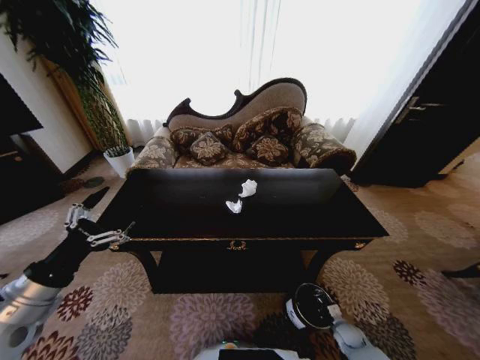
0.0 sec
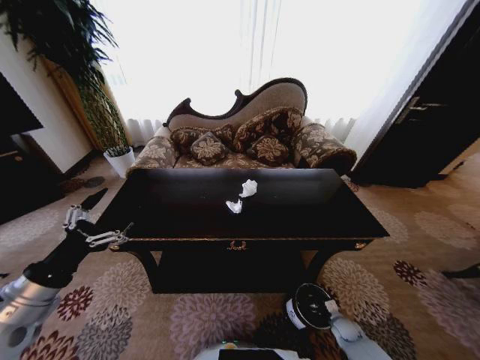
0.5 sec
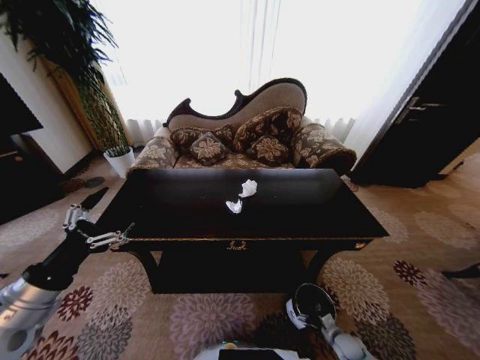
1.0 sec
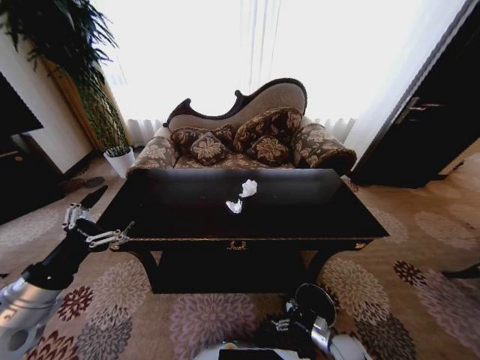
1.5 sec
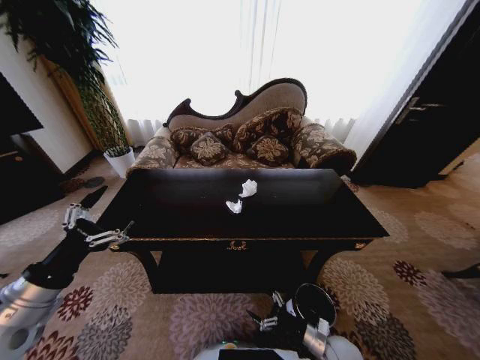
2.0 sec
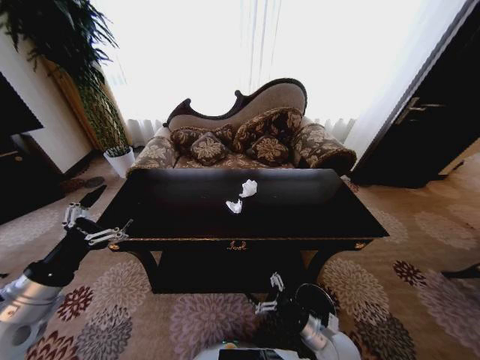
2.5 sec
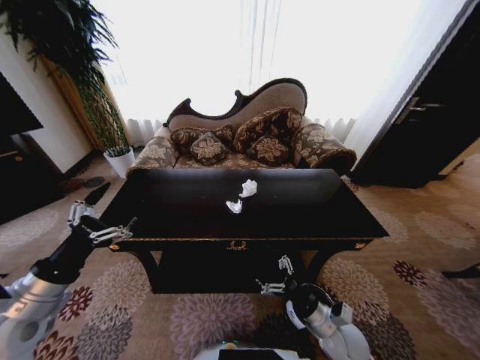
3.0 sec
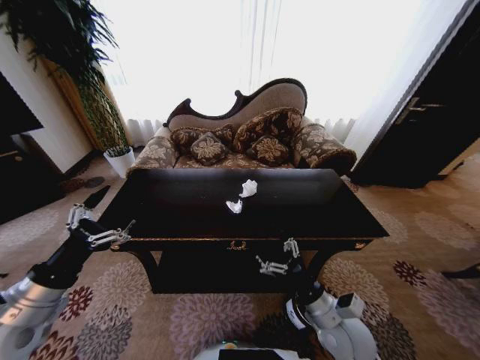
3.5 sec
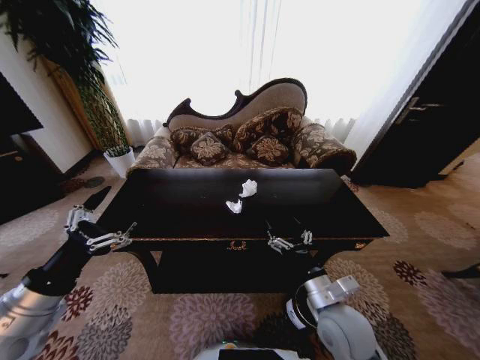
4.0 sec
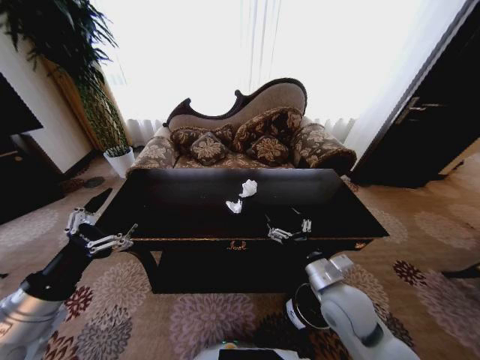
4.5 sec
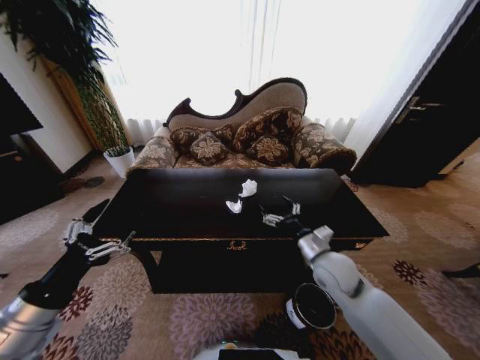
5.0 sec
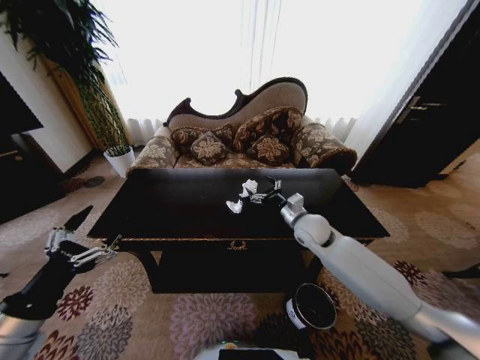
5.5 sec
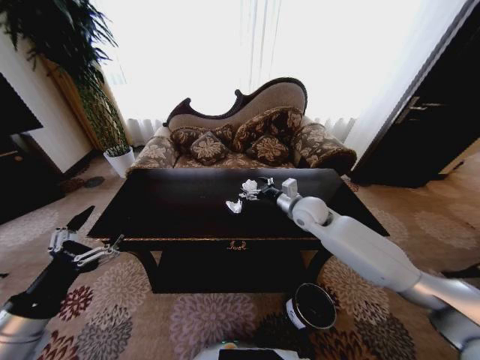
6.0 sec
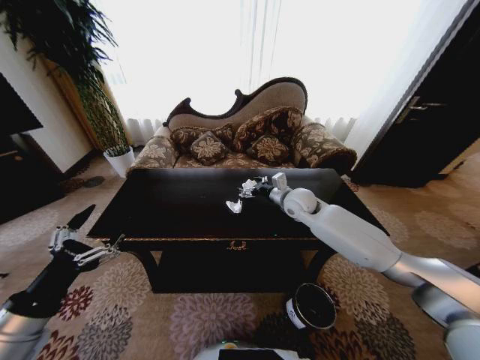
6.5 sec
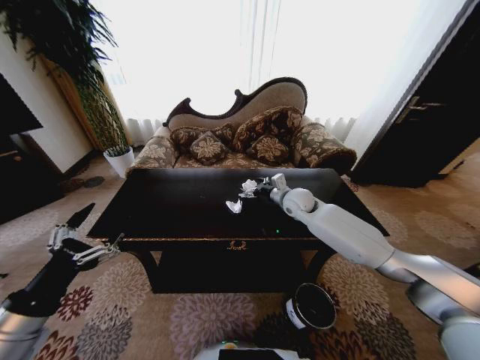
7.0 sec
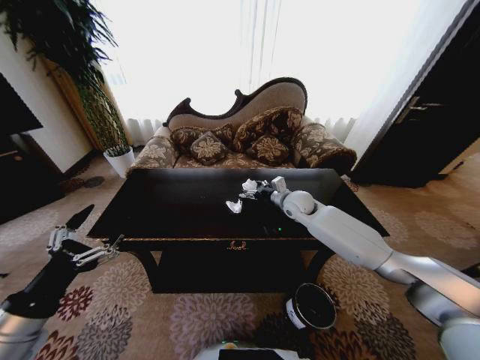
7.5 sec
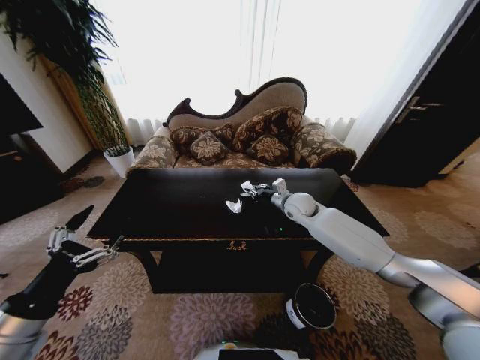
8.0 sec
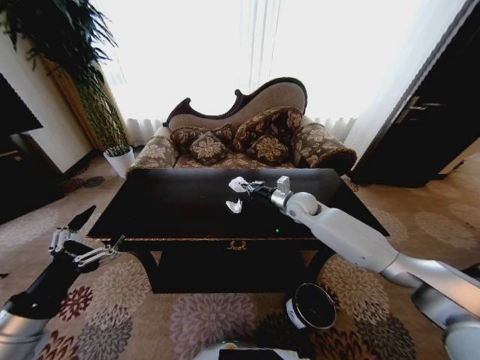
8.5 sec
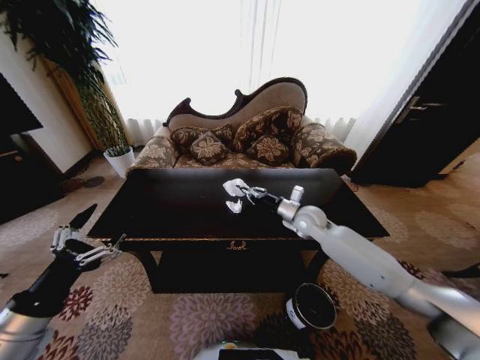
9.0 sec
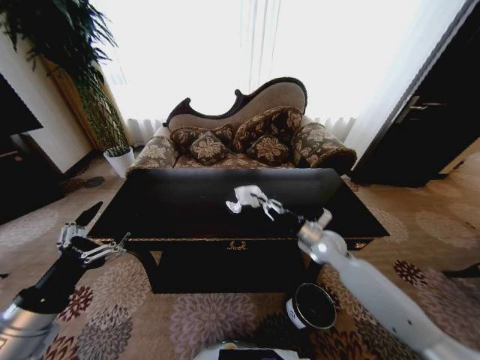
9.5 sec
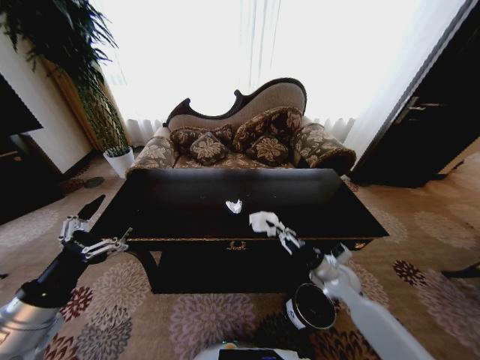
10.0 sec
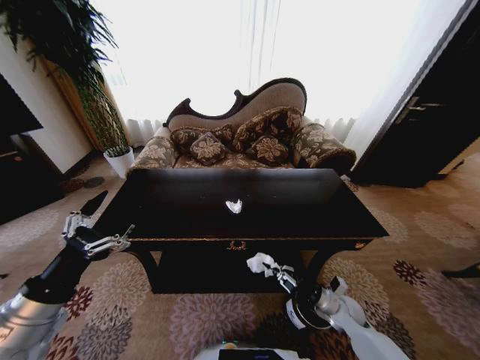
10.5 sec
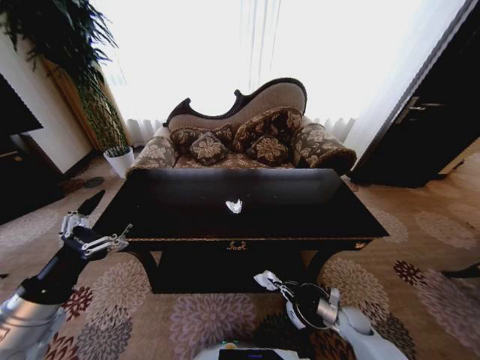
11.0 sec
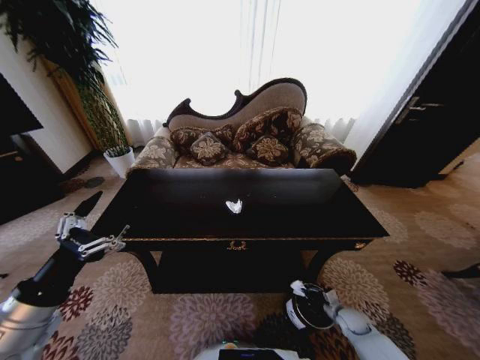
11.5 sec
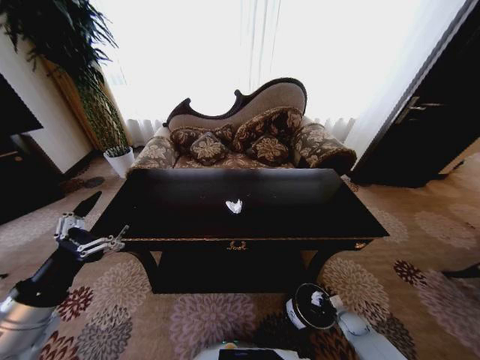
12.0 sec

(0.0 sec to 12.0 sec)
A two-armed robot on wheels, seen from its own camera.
Task of the whole recording: Move to the front of the table and place the trash on the table into the trash bin.
0.0 sec - 2.0 sec: The right gripper moves to the left and upward, approximately 15 cm, and opens.
2.0 sec - 4.0 sec: The right gripper moves upward and to the left, some 25 cm.
4.0 sec - 6.0 sec: The right gripper is displaced forward by roughly 25 cm.
6.0 sec - 8.0 sec: The right gripper moves forward, approximately 5 cm, and closes its fingers.
8.0 sec - 10.0 sec: The right gripper is displaced backward, downward and to the right by about 25 cm.
10.0 sec - 12.0 sec: The right gripper goes approximately 25 cm downward and to the right.

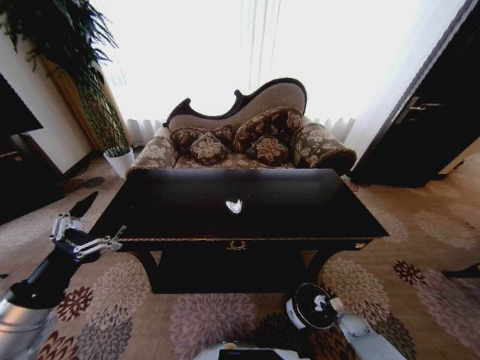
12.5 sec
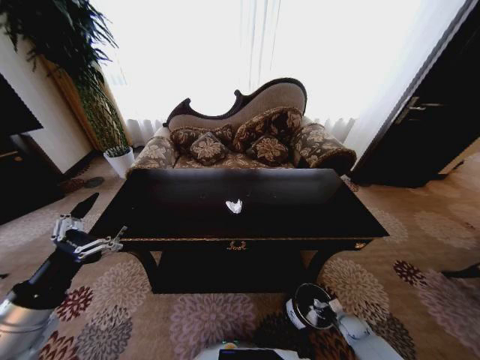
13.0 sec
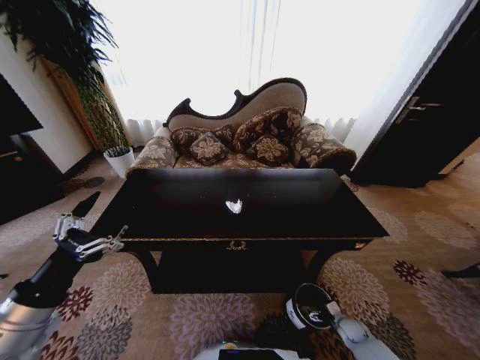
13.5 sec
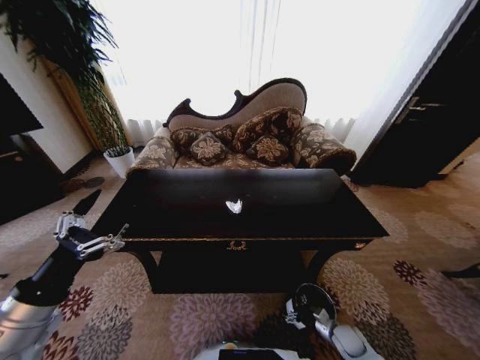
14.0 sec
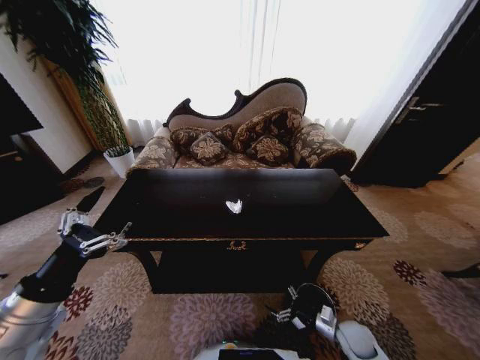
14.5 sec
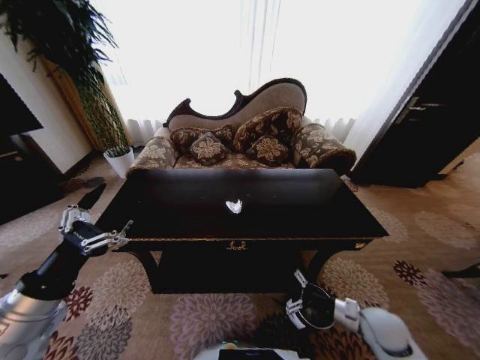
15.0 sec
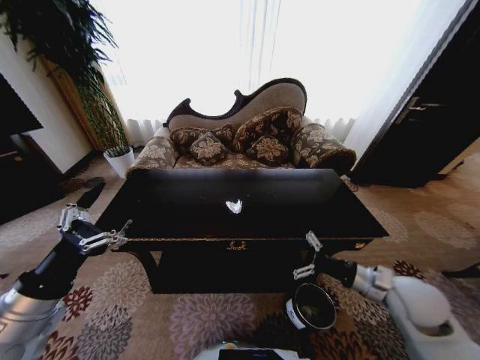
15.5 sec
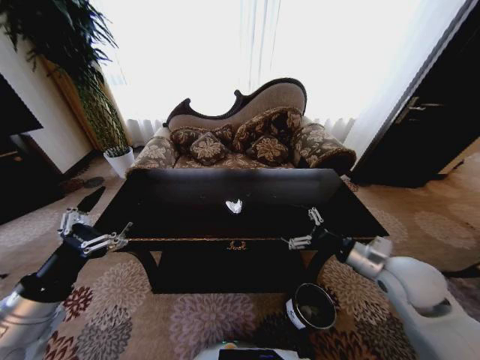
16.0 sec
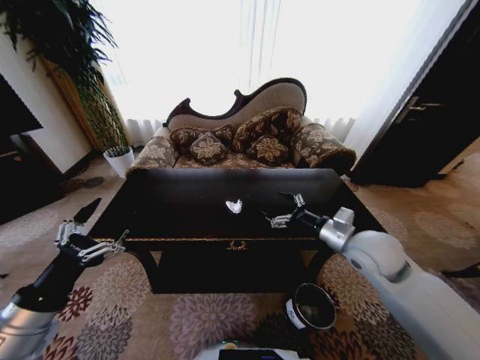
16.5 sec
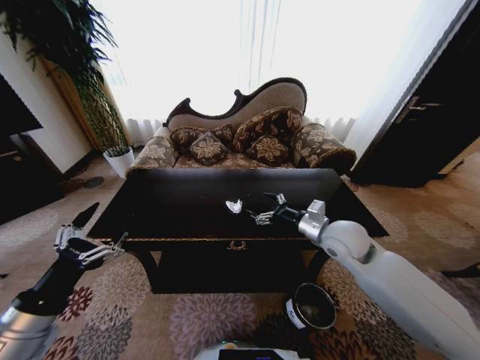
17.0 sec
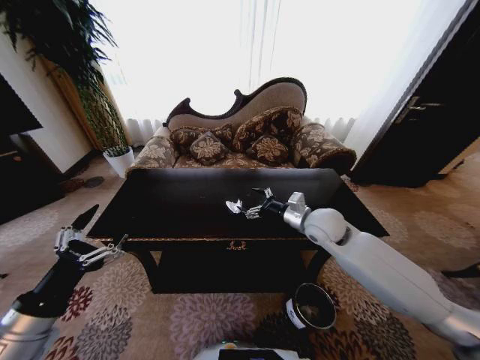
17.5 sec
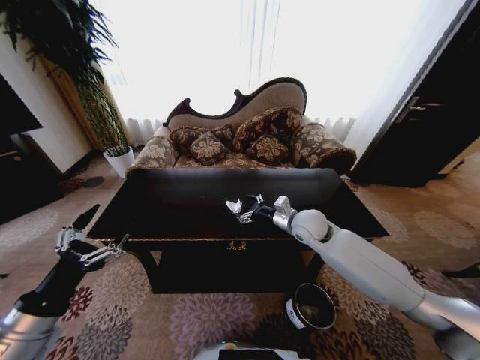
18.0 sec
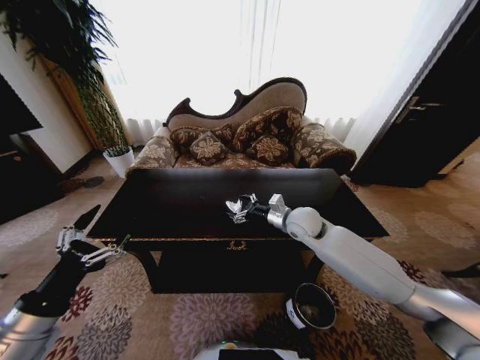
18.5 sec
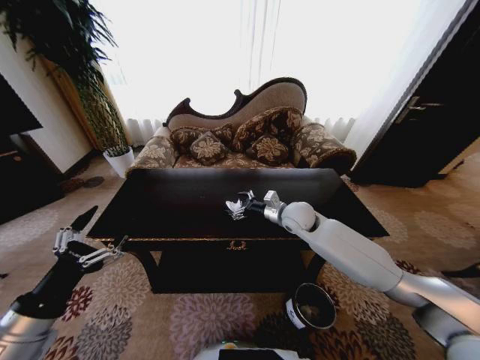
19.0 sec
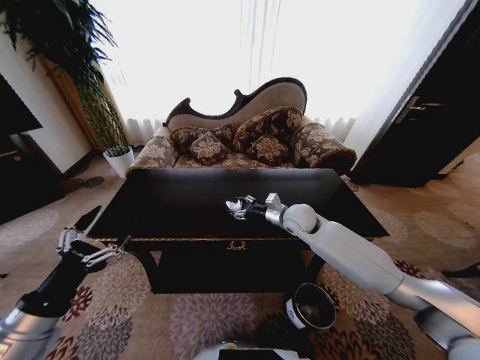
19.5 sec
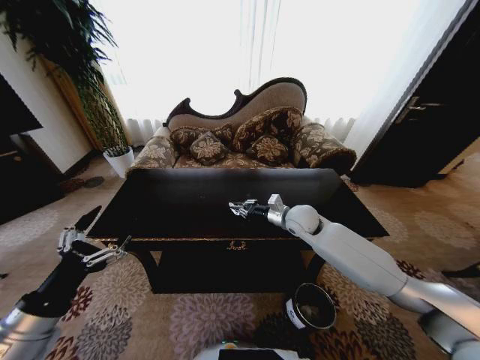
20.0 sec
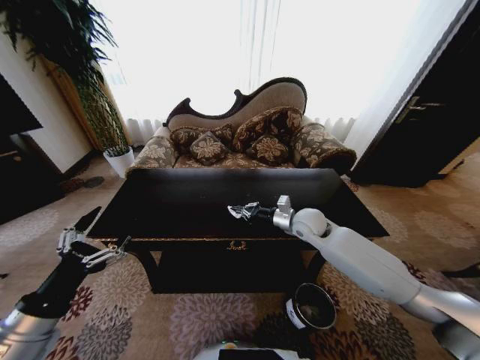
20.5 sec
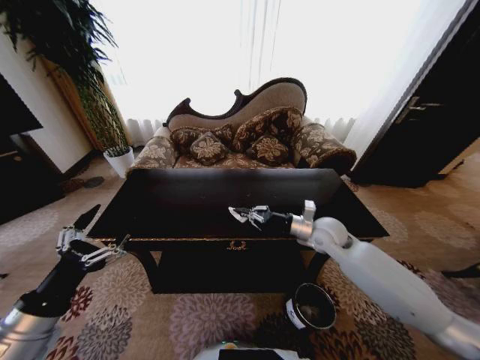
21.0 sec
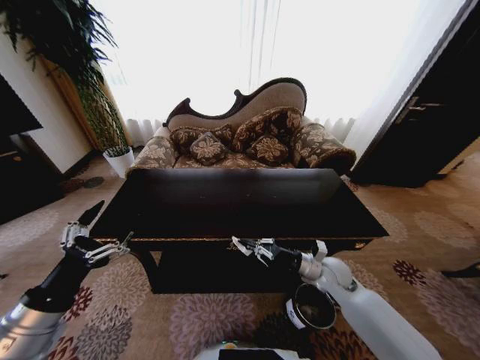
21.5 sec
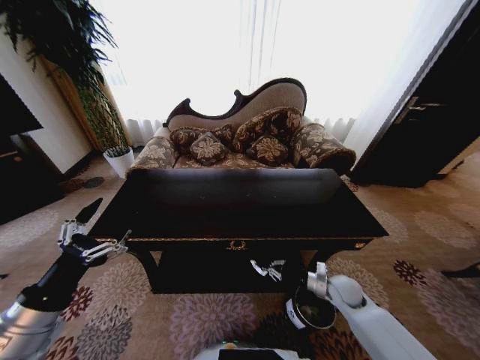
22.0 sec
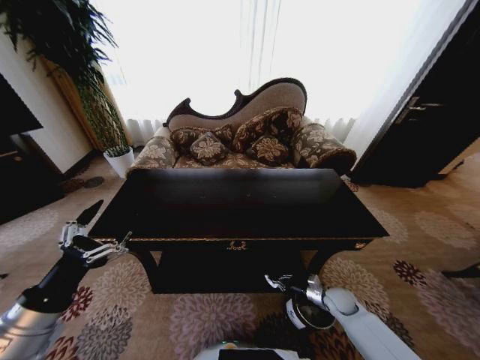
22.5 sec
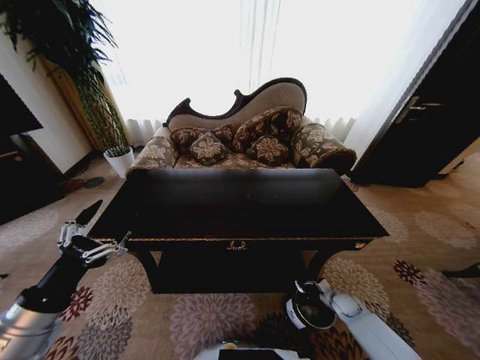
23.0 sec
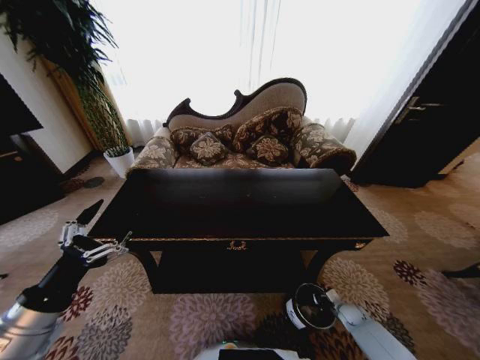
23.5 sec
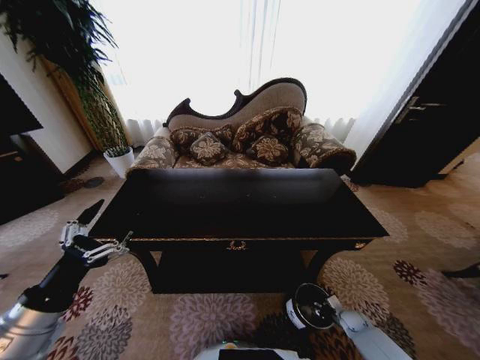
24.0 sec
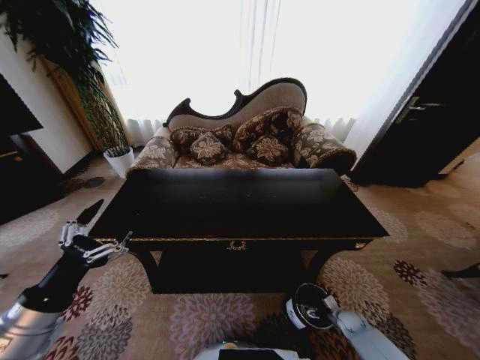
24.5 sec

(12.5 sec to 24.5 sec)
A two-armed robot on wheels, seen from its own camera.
Task of the whole recording: Move to the front of the table and place the trash on the table into the trash bin.
12.5 sec - 14.5 sec: The right gripper heads upward and to the left, covering roughly 15 cm, and opens.
14.5 sec - 16.5 sec: The right gripper shifts some 35 cm upward.
16.5 sec - 18.5 sec: The right gripper travels forward and to the left by some 15 cm.
18.5 sec - 20.5 sec: The right gripper closes up.
20.5 sec - 22.5 sec: The right gripper travels downward, to the right and backward by roughly 35 cm.
22.5 sec - 24.5 sec: The right gripper is displaced downward and to the right by roughly 15 cm, and opens up.

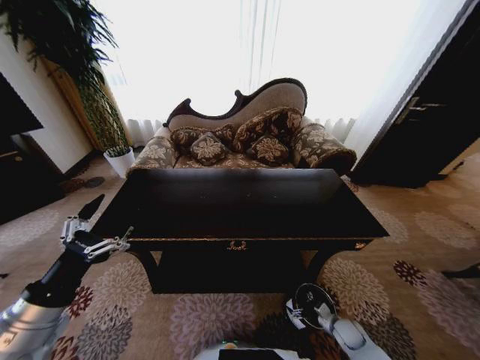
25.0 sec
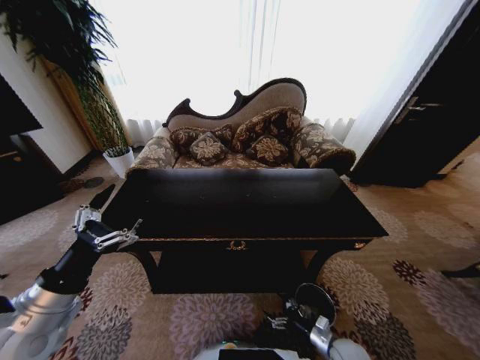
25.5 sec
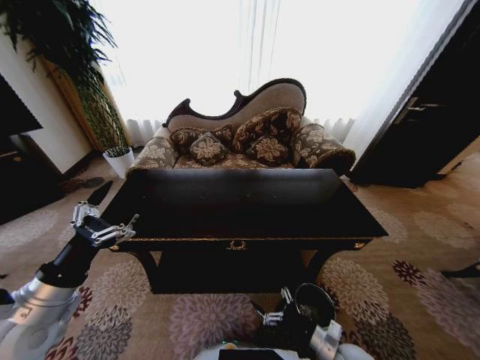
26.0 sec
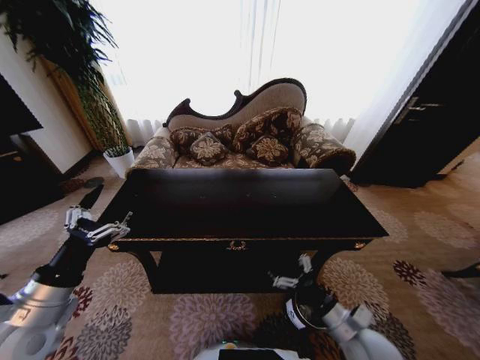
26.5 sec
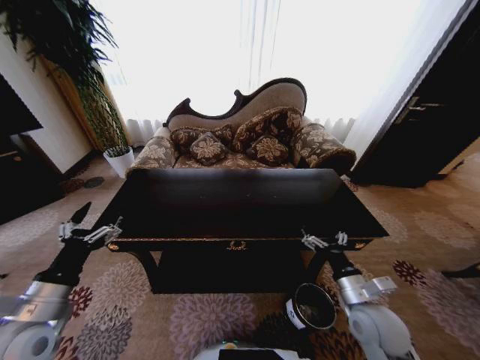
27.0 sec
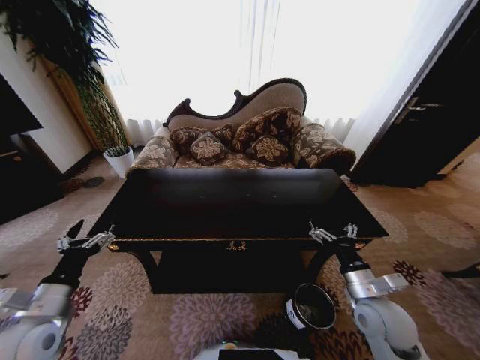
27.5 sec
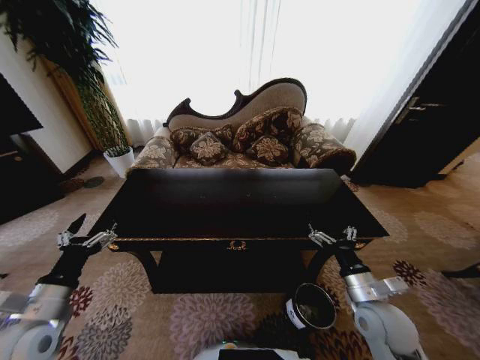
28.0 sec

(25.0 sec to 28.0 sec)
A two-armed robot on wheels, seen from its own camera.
Task of the whole recording: Move to the front of the table and place the trash on the table into the trash bin.
25.0 sec - 26.5 sec: The right gripper travels upward and to the left by about 25 cm.
26.5 sec - 28.0 sec: The right gripper moves approximately 5 cm; the left gripper ends up some 5 cm from where it was.
